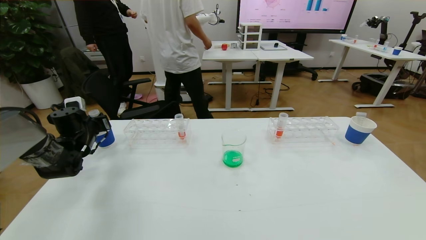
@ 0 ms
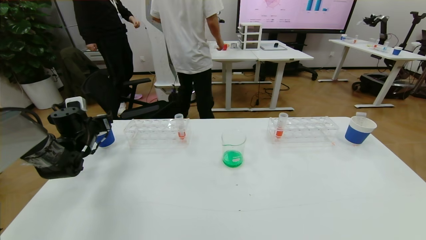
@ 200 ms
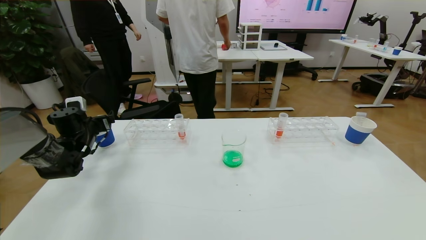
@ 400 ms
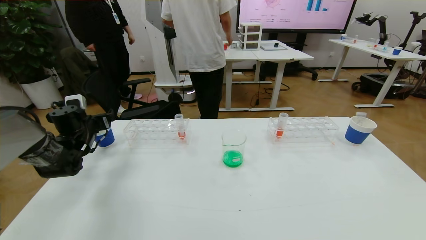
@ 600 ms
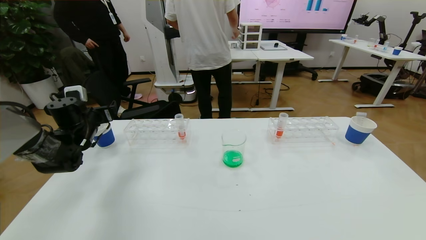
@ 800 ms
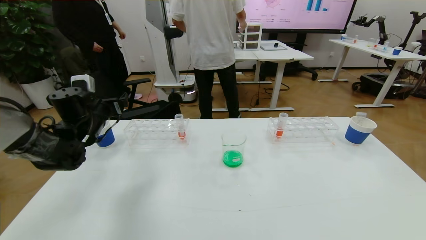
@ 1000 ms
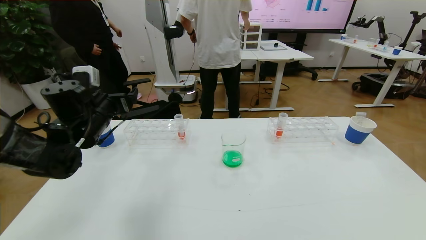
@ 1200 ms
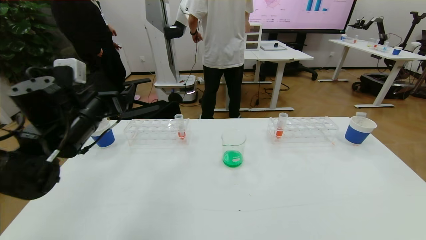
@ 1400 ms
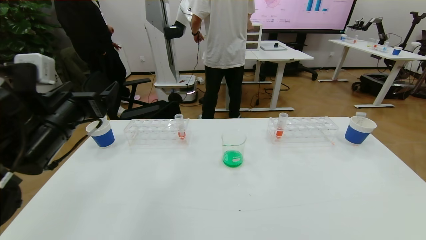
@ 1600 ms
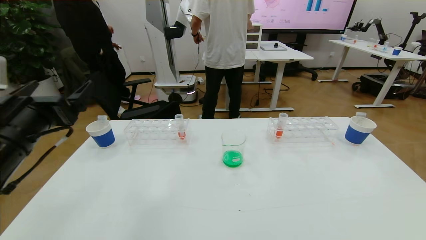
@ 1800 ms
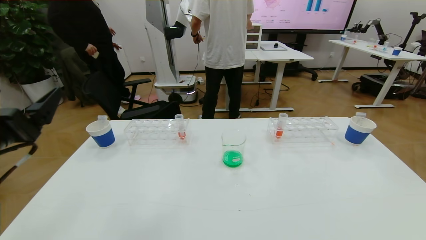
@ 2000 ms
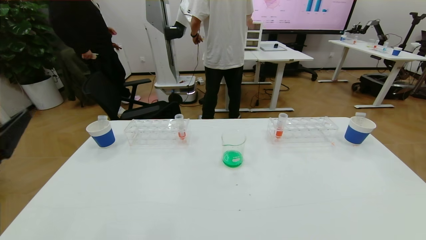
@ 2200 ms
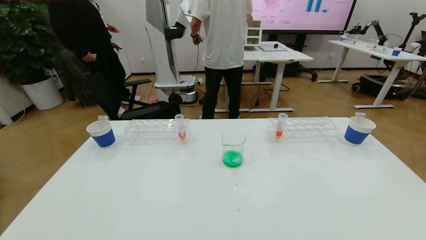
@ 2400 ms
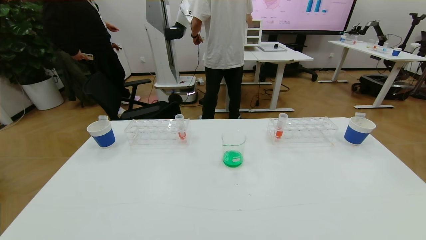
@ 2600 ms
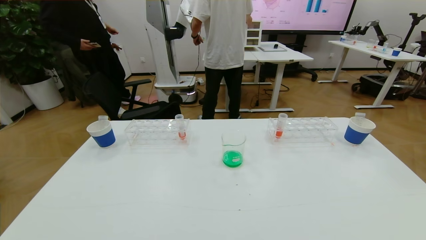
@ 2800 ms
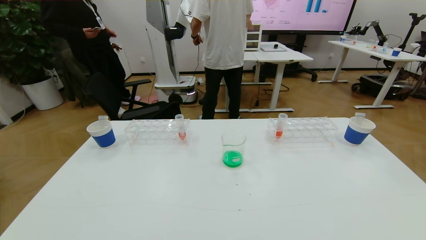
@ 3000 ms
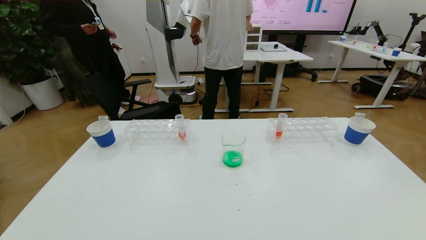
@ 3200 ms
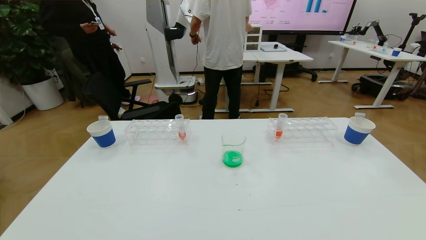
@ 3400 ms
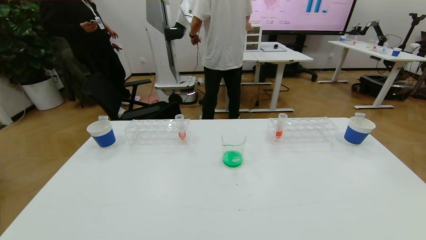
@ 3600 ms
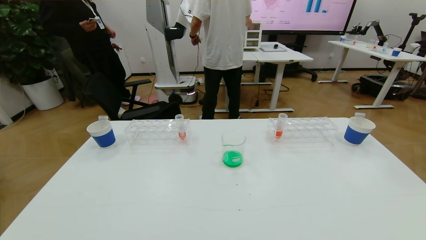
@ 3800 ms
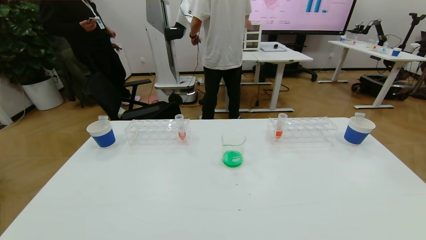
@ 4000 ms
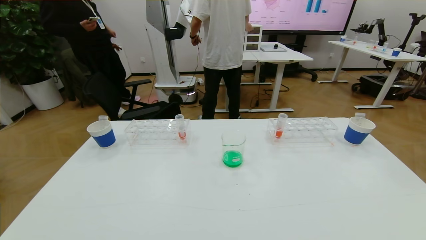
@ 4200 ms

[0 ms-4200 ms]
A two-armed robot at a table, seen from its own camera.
Task of the whole recording: pick up the test tube with yellow pigment and the test tube with blue pigment by grippers and pour them into the beaker.
Step, 0 ms to 4200 ms: Pour the blue reagent into the graduated cylinder and place the test tube into the paper cup.
0 ms to 1400 ms: The left gripper is displaced to the right, upward and backward by approximately 20 cm, and opens its fingers.
1400 ms to 2800 ms: The left gripper shifts roughly 35 cm backward.
2800 ms to 4200 ms: The left gripper moves downward, about 15 cm.

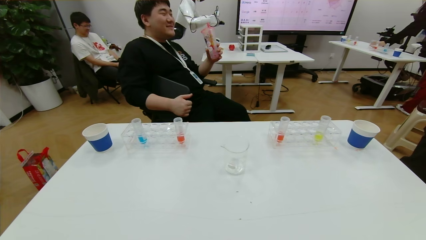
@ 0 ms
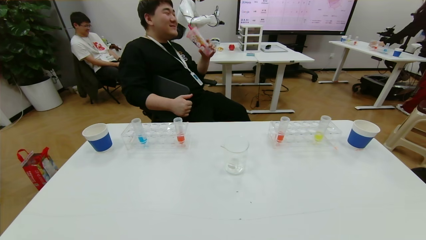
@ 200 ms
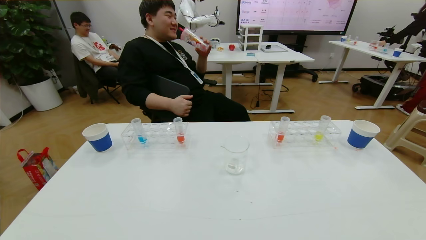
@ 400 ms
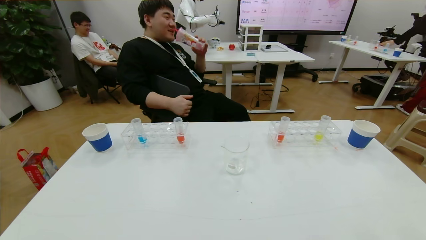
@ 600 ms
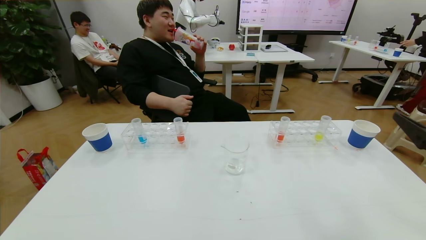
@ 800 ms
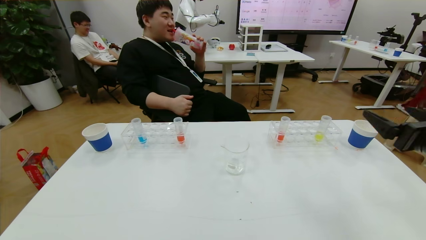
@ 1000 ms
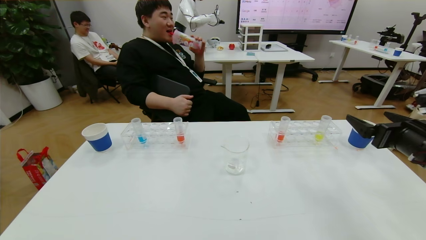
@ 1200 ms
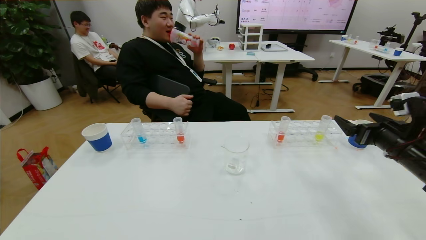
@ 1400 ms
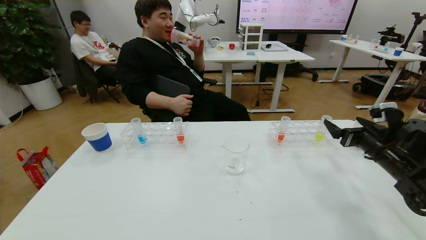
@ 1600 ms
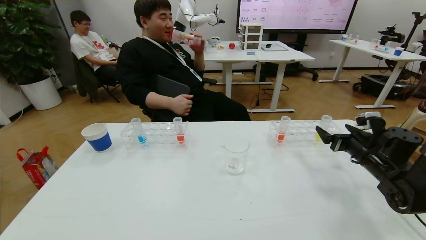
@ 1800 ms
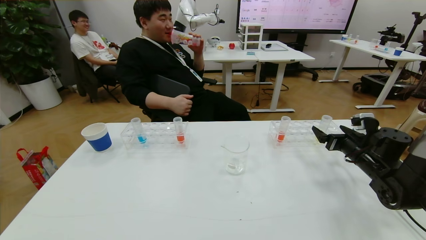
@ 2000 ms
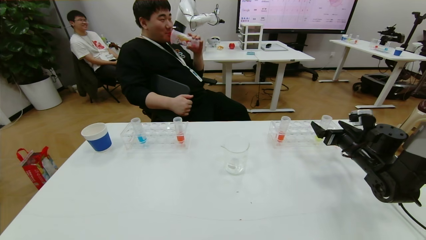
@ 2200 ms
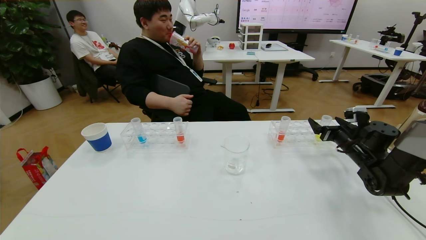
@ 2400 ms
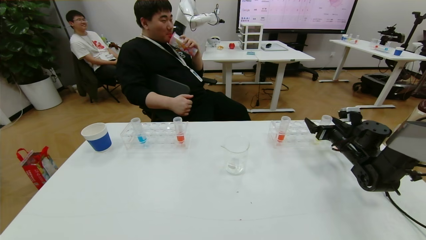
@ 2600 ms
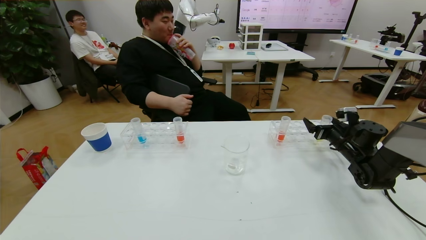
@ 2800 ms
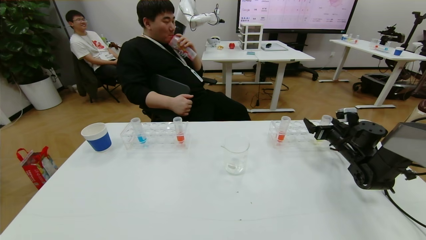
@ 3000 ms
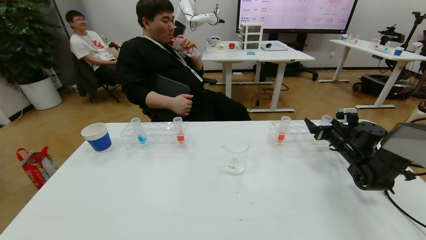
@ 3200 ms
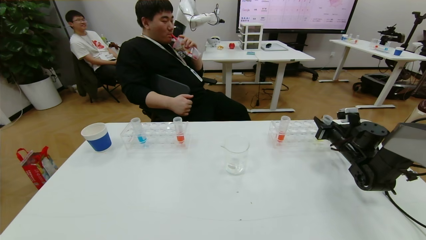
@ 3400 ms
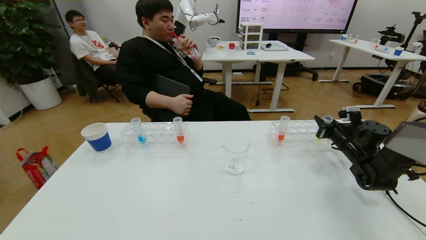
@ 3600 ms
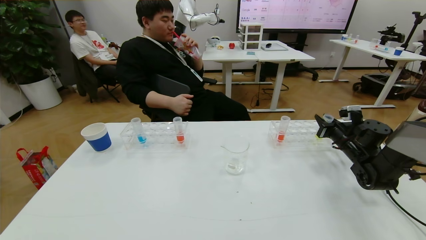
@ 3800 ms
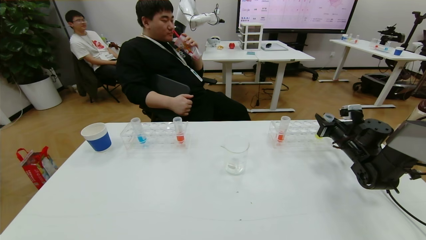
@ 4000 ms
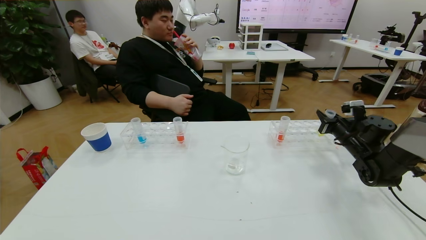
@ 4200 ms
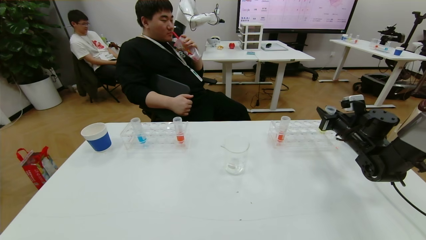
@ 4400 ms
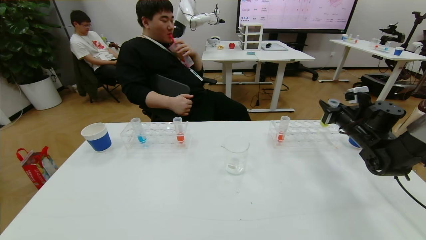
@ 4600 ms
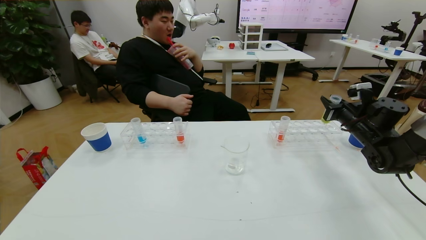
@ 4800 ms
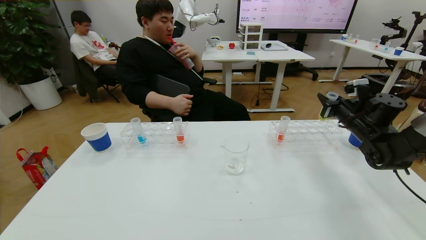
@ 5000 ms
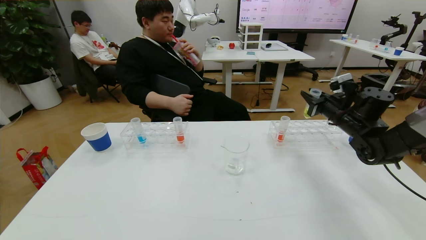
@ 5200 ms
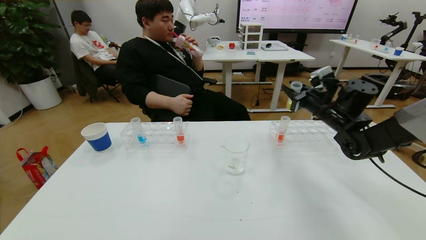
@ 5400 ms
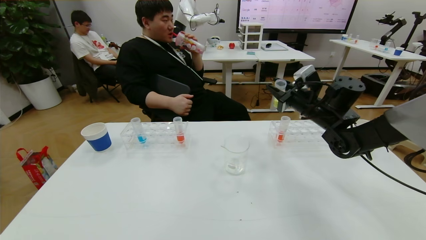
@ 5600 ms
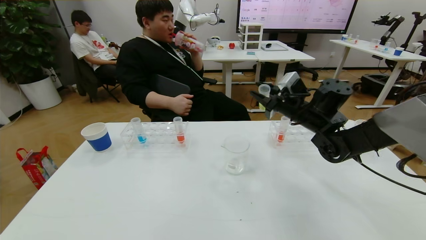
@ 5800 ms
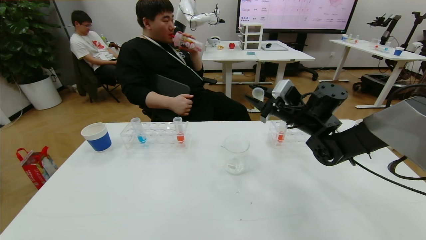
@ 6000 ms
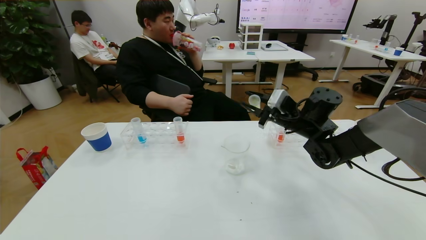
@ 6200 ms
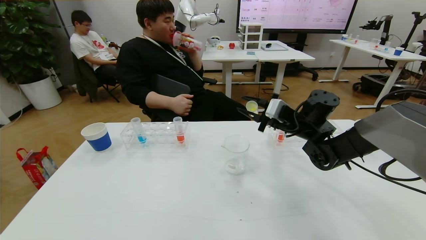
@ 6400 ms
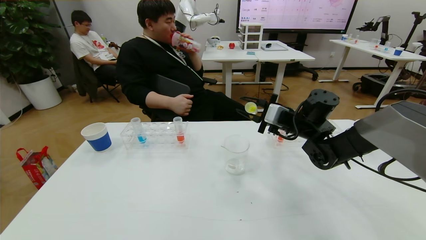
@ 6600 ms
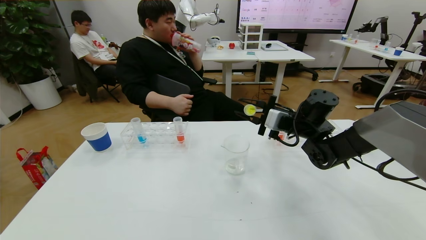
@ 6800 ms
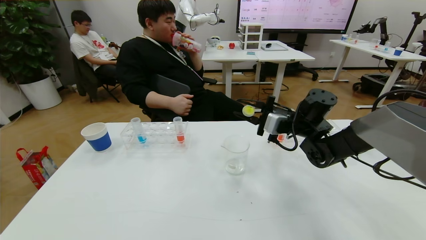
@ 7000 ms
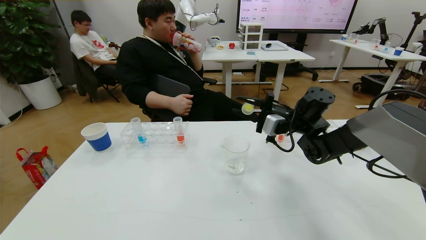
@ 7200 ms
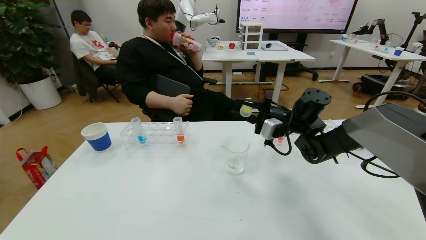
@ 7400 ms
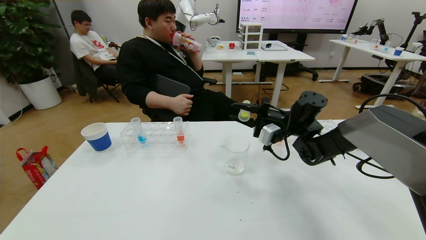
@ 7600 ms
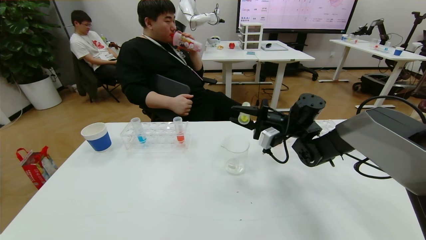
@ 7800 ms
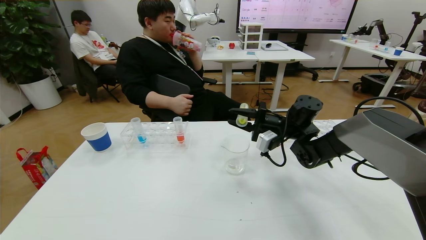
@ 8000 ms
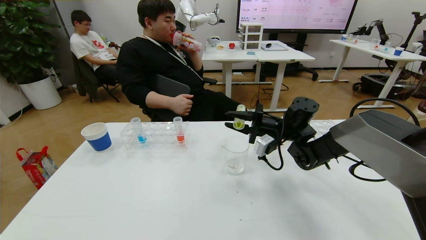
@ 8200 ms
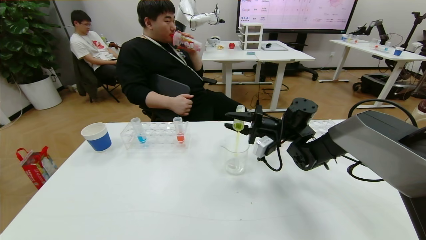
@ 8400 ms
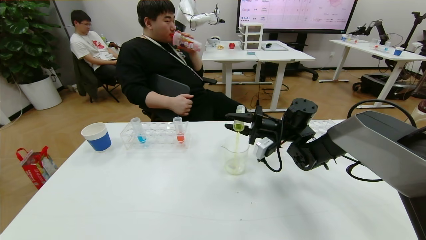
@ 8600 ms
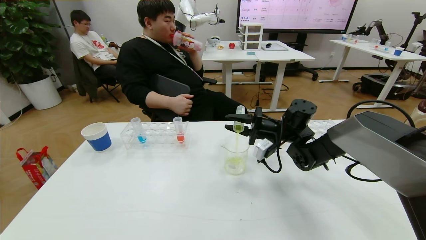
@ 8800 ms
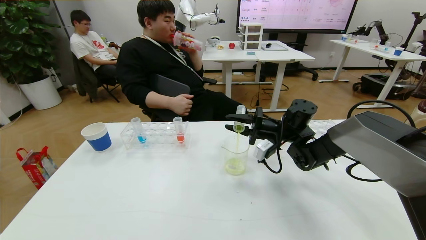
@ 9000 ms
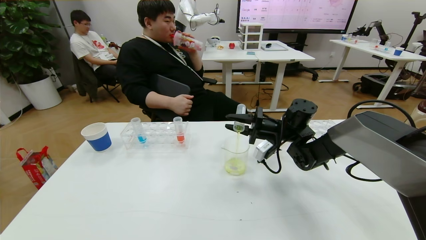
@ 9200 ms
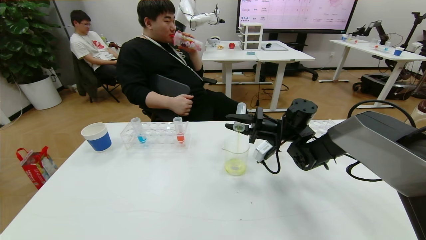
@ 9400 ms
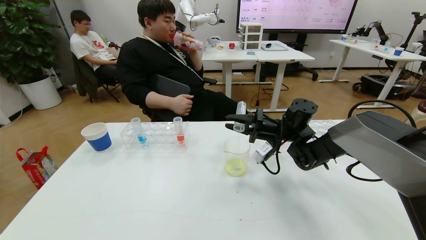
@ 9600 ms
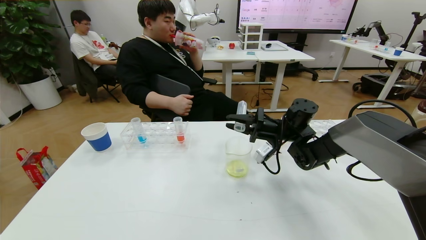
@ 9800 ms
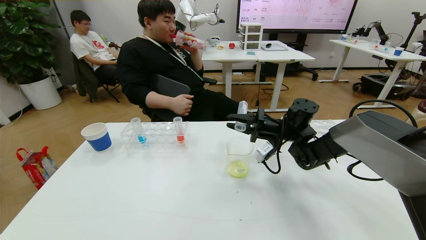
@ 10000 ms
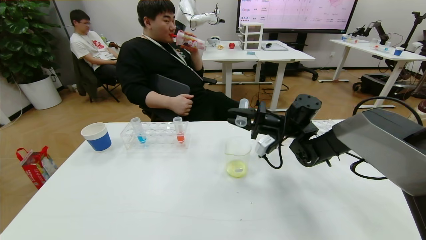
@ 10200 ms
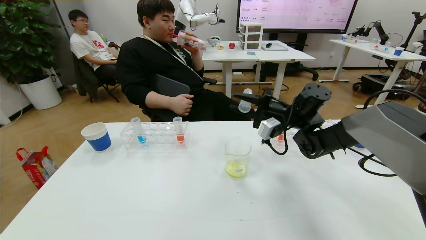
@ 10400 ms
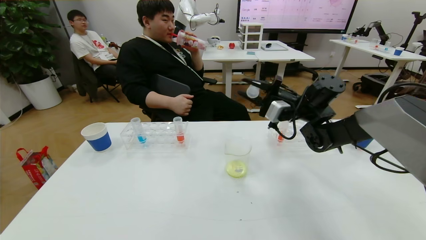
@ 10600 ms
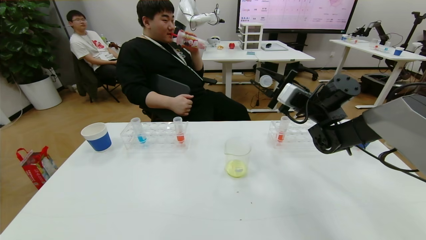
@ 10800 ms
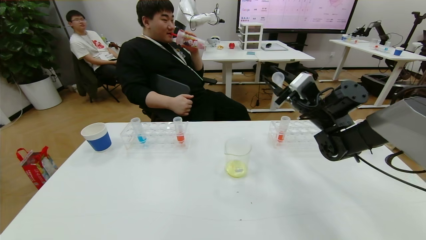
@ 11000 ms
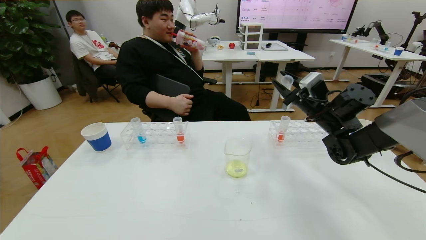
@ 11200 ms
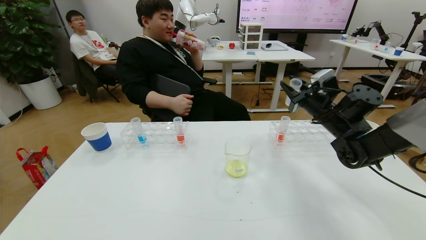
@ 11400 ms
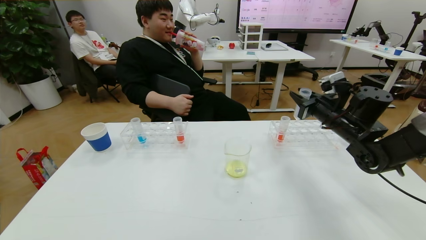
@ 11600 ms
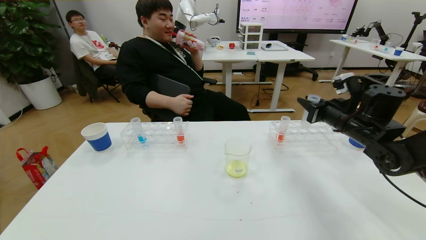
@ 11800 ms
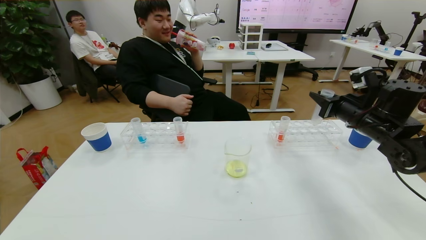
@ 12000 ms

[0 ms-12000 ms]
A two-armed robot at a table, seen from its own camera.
Task of the whole recording: pick up the test tube with yellow pigment and the test tube with blue pigment by grippers and pour them into the beaker.
0 ms to 1600 ms: The right gripper shifts roughly 35 cm forward.
1600 ms to 3000 ms: The right gripper heads forward and downward, covering roughly 10 cm.
3000 ms to 4400 ms: The right gripper closes up.
4400 ms to 6000 ms: The right gripper shifts roughly 20 cm to the left.
7600 ms to 9000 ms: The grippers move only a little.
9000 ms to 10400 ms: The right gripper travels upward by about 5 cm.
10400 ms to 12000 ms: The right gripper travels to the right and backward by roughly 15 cm.
